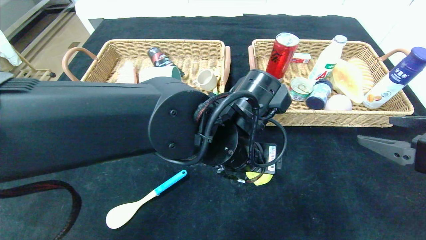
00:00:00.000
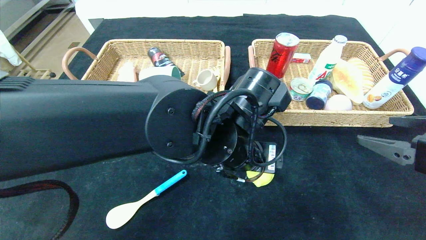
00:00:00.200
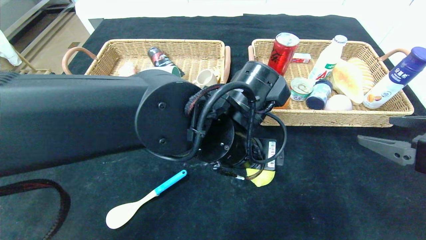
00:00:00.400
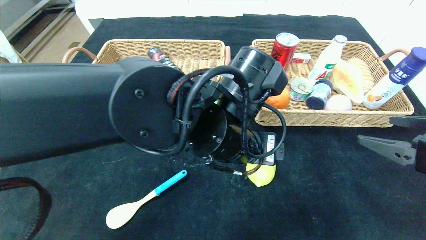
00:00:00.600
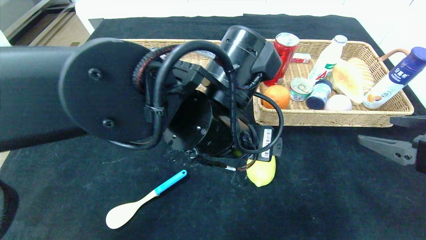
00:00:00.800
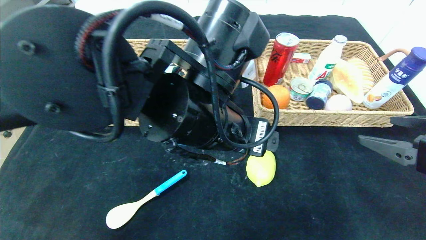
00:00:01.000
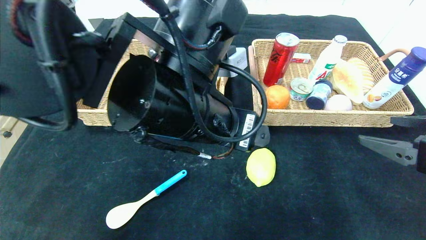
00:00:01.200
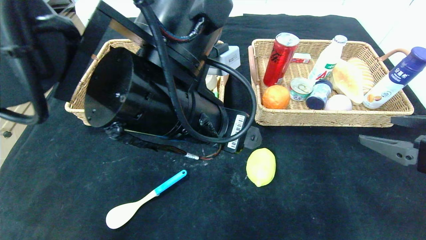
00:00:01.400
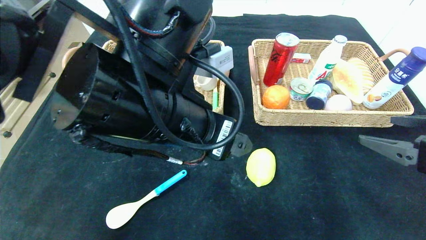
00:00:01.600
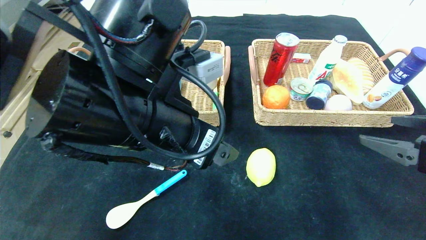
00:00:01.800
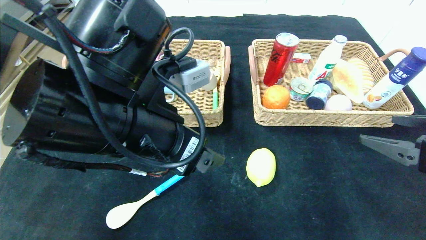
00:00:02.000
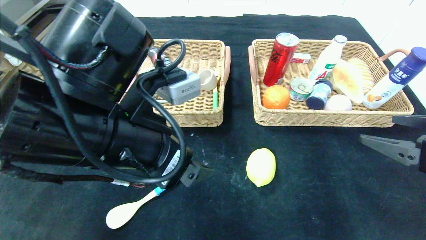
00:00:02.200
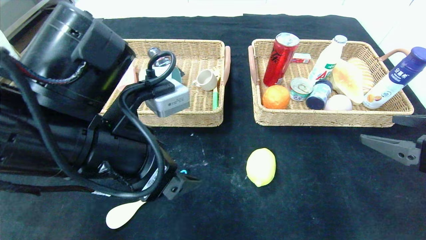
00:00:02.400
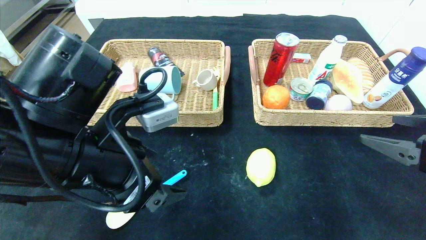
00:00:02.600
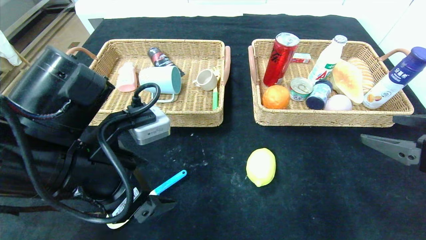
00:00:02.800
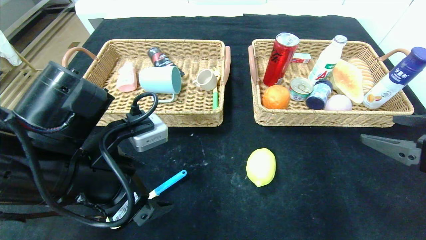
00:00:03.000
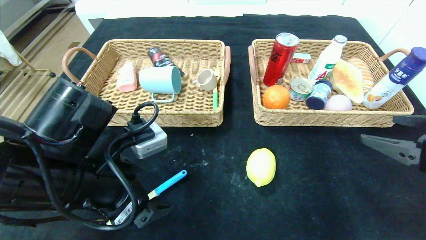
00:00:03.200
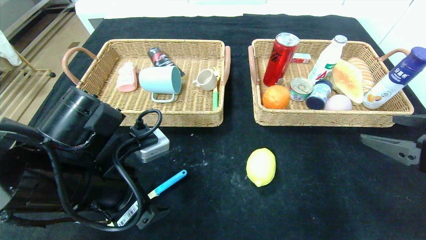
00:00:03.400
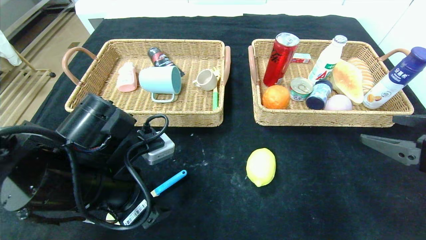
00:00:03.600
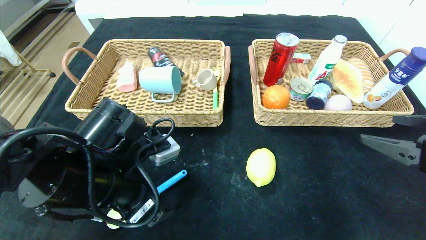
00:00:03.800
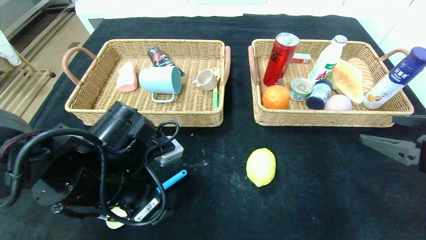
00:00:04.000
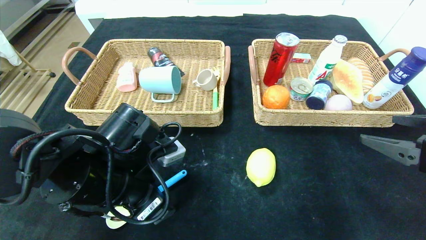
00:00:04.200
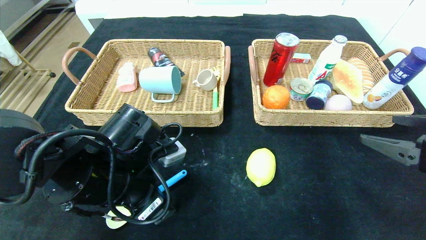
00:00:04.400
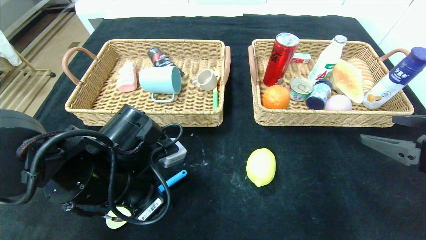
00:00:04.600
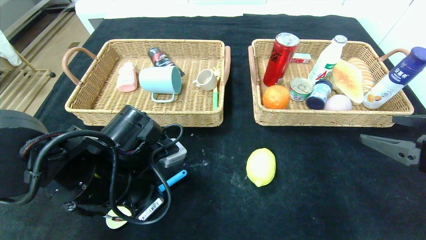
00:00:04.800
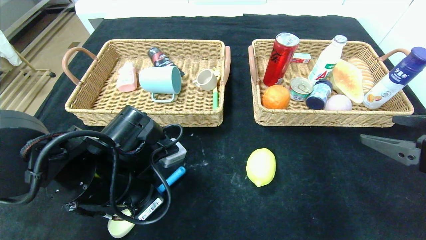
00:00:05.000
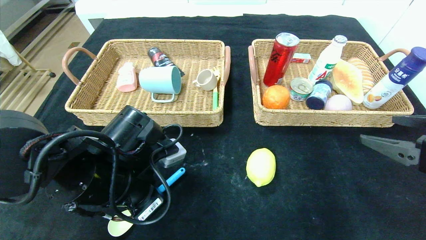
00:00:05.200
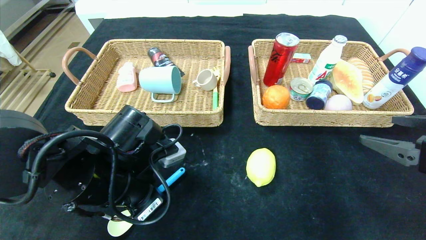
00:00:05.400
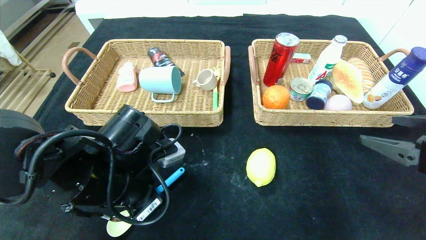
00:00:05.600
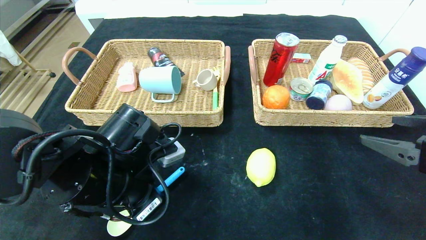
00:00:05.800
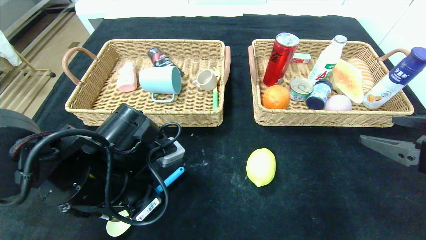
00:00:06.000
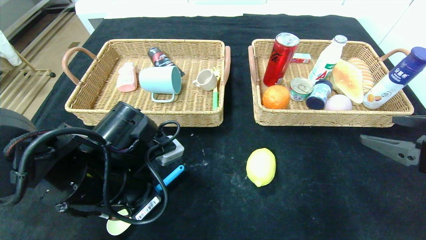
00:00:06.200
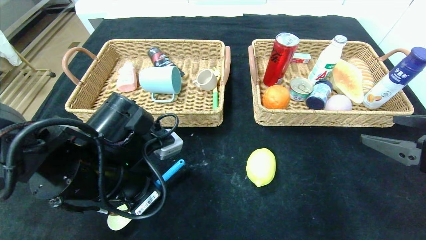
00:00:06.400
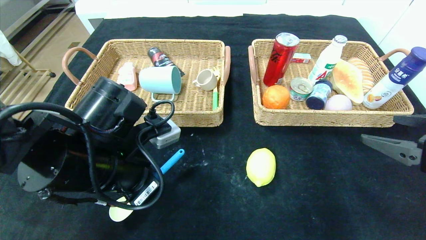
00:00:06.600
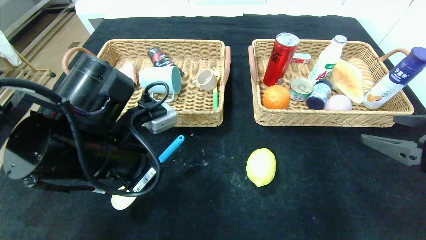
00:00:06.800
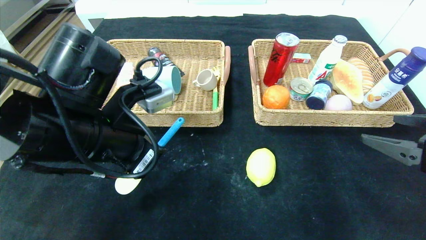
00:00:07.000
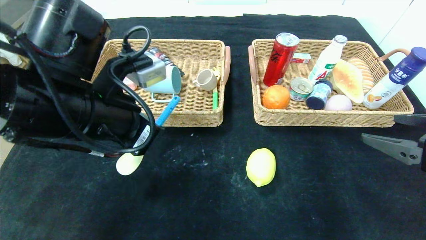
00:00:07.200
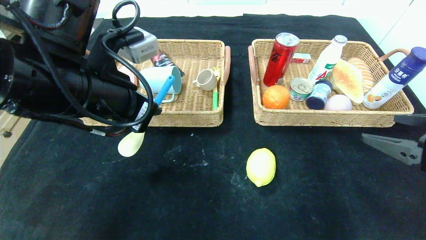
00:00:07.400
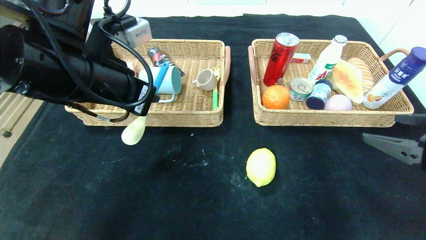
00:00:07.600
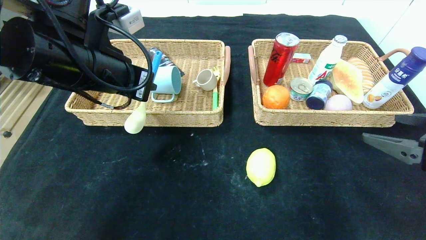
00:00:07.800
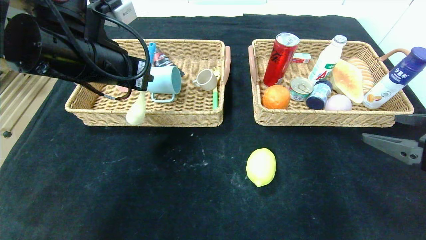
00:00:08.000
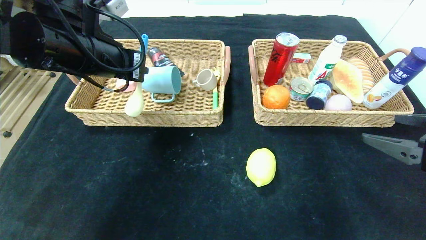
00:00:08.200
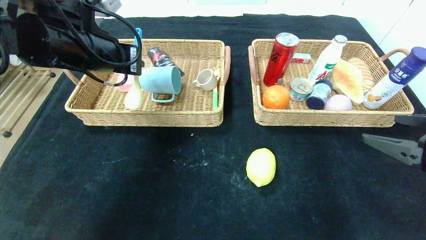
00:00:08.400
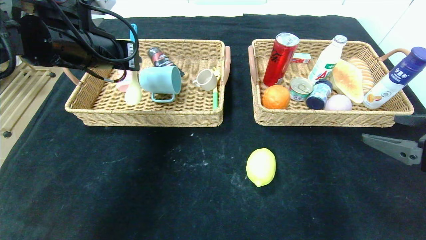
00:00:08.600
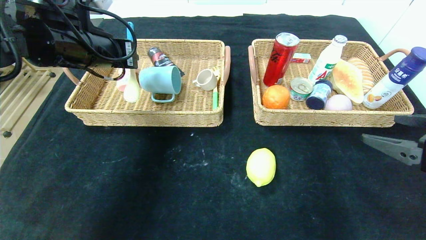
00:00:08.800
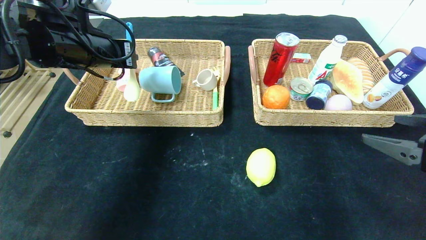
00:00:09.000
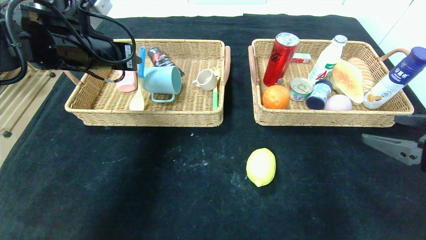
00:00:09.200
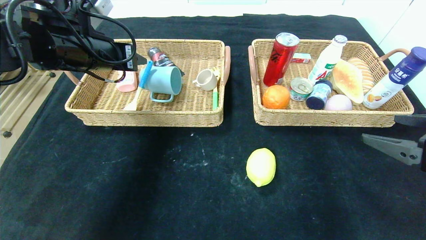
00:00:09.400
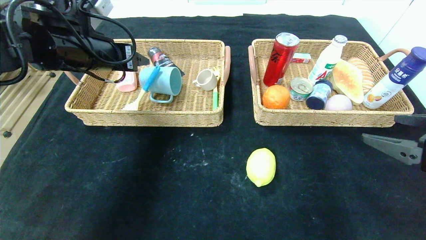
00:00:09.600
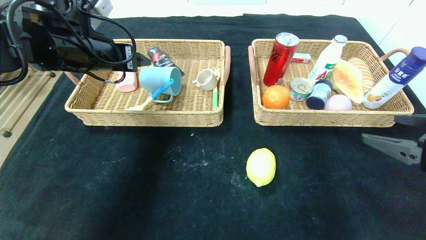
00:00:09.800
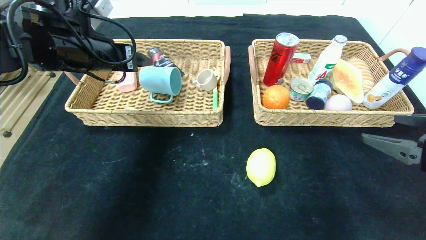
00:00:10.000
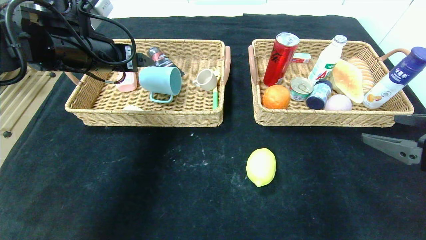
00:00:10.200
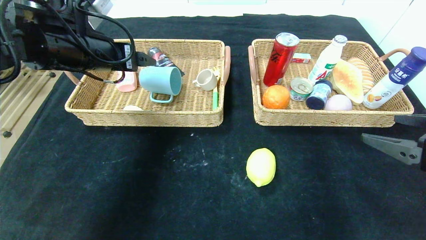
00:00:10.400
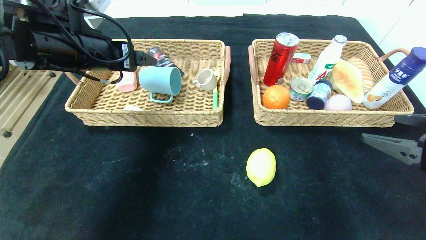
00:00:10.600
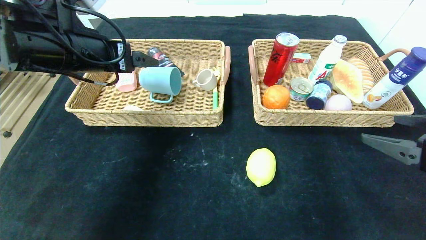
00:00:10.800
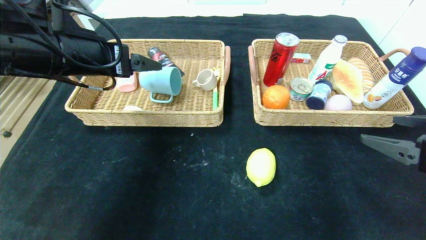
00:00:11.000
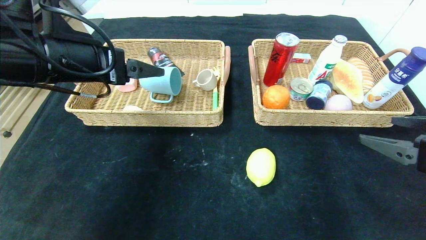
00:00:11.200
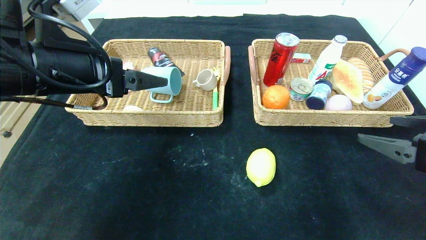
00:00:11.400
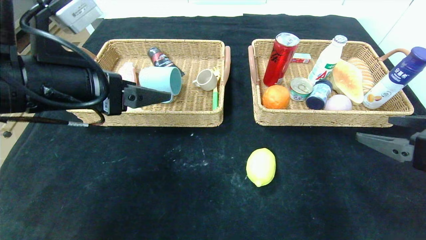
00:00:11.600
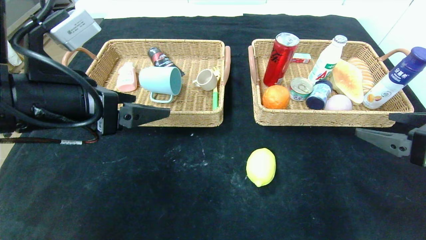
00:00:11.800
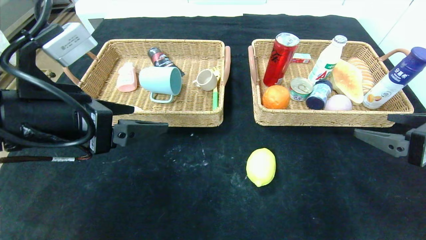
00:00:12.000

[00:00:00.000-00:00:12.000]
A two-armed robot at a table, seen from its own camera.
Step, 00:00:00.400 to 00:00:09.800: Grasp the spoon and put it in the left basket.
00:00:00.000 to 00:00:01.600: The left gripper shifts some 10 cm to the left and upward.
00:00:01.600 to 00:00:03.000: The left gripper is displaced to the left and downward by about 10 cm.
00:00:03.000 to 00:00:04.400: The left gripper shifts by some 5 cm.
00:00:04.400 to 00:00:06.000: The left gripper closes up.
00:00:06.000 to 00:00:07.600: The left gripper travels upward by roughly 15 cm.
00:00:07.600 to 00:00:09.000: The left gripper travels forward and to the left by roughly 10 cm.
00:00:09.000 to 00:00:10.400: The left gripper opens up.
00:00:10.400 to 00:00:12.000: The left gripper is displaced backward by roughly 15 cm.

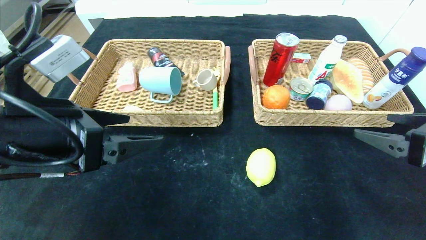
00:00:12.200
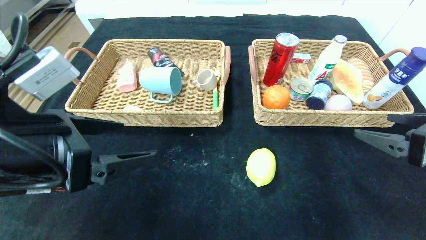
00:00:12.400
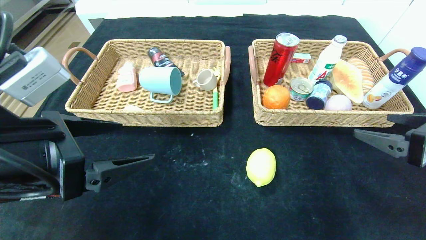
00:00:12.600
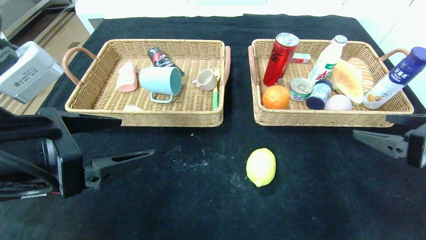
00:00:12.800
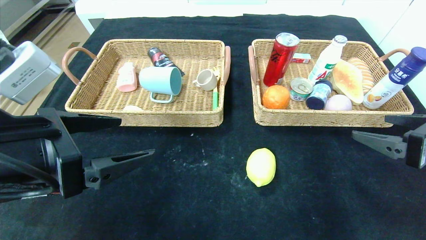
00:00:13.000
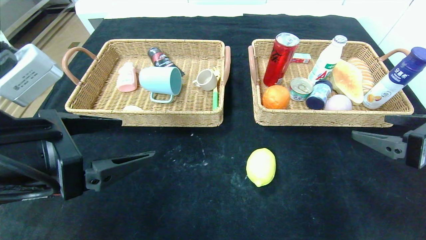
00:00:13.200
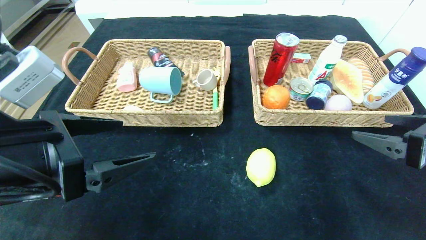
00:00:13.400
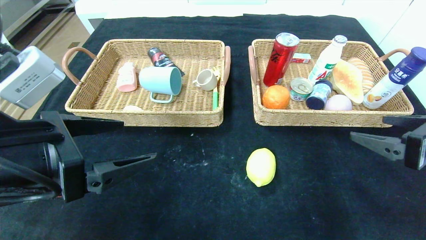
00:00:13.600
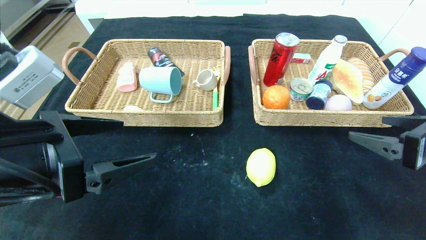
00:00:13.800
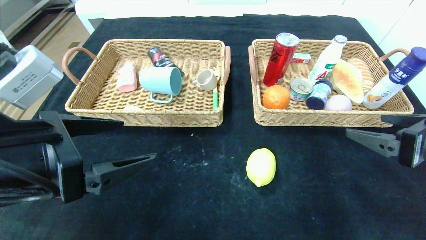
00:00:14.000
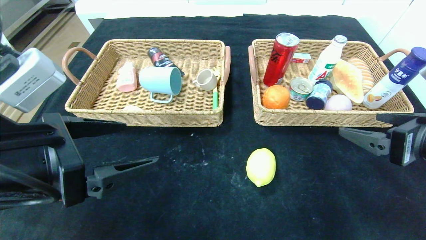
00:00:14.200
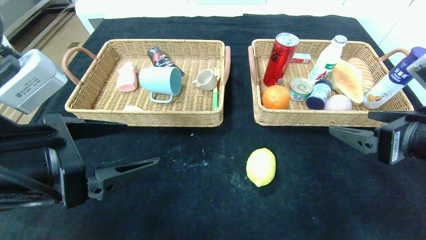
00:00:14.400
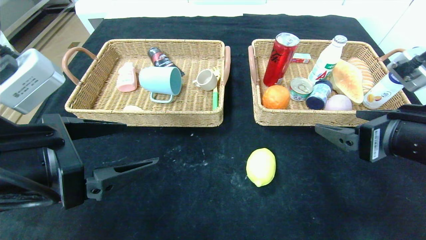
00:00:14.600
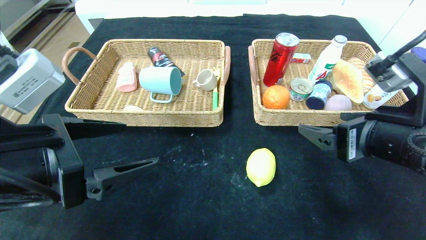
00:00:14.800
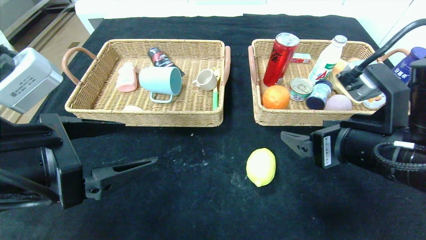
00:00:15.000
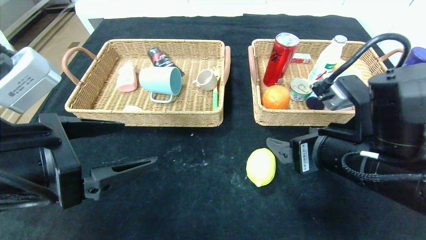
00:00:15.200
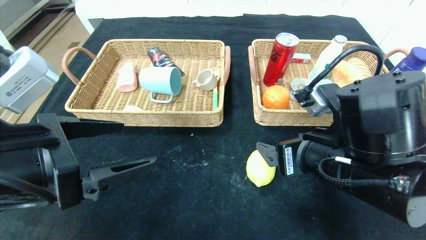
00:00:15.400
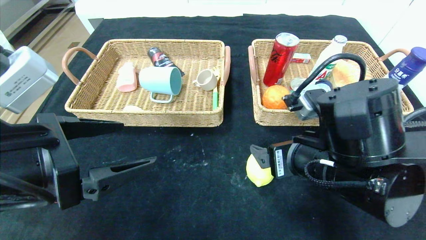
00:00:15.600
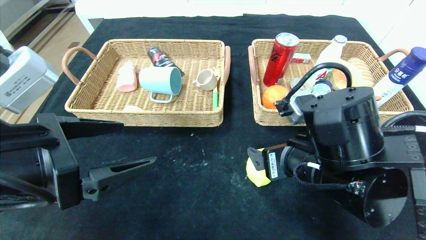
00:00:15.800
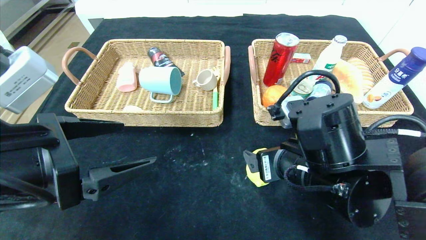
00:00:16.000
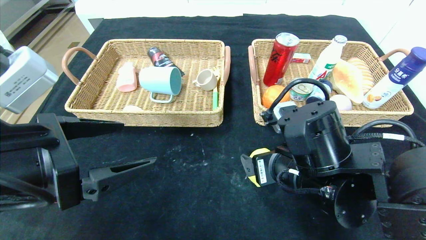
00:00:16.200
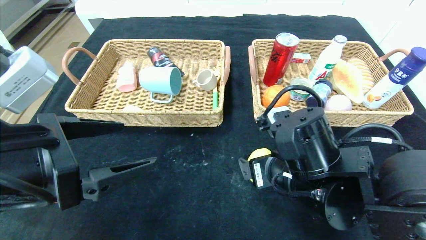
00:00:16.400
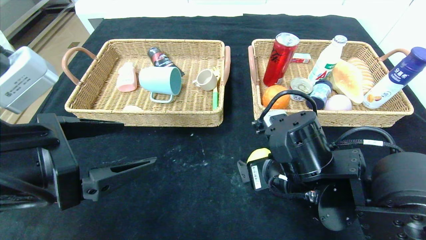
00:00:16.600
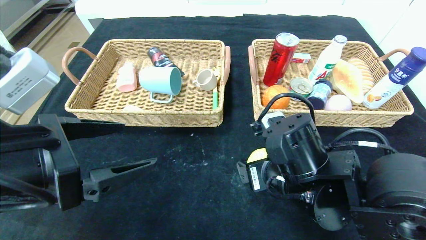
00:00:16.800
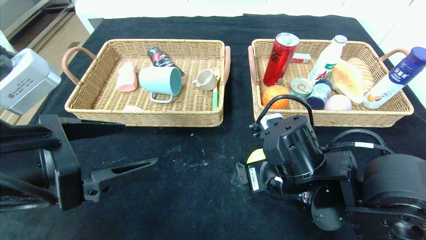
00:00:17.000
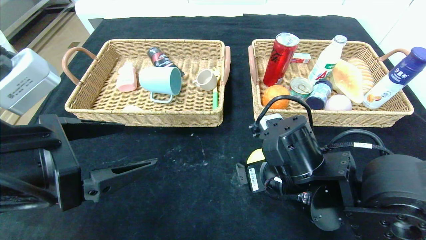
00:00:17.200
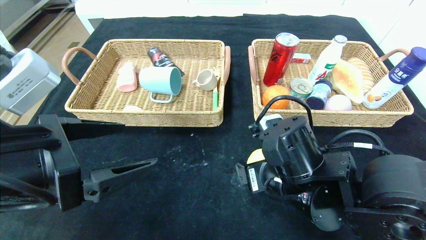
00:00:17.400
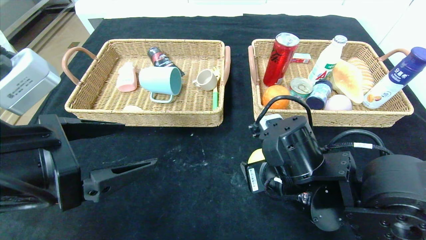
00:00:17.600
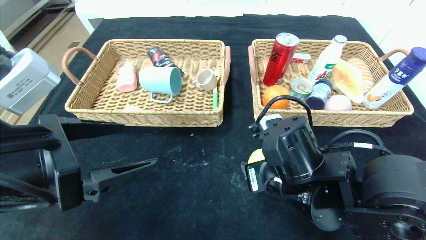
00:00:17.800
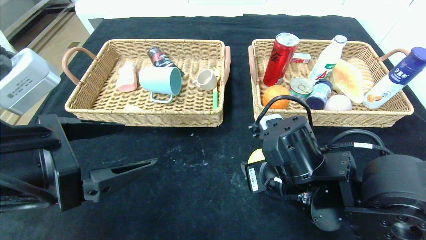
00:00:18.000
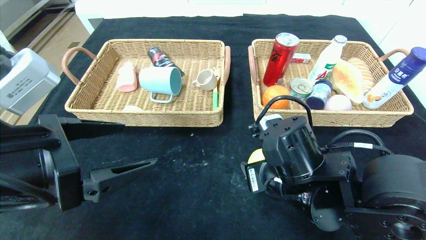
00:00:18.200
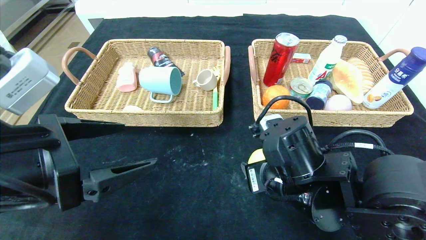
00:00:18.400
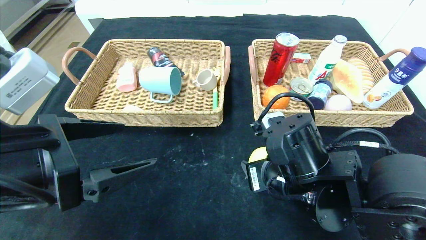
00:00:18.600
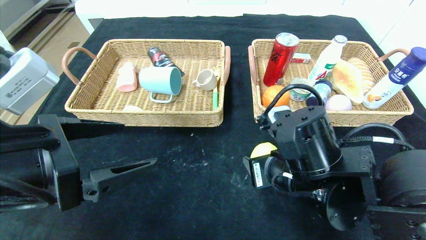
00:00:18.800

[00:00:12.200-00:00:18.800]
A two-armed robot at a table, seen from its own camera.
00:00:12.200 to 00:00:13.800: The grippers make only small movements.
00:00:13.800 to 00:00:15.400: The right gripper is displaced to the left by some 15 cm.
00:00:15.400 to 00:00:17.200: The right gripper is displaced downward by some 5 cm.
00:00:17.200 to 00:00:18.800: The right gripper closes its fingers.
